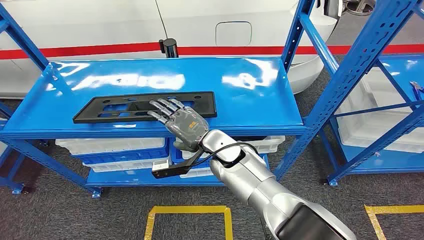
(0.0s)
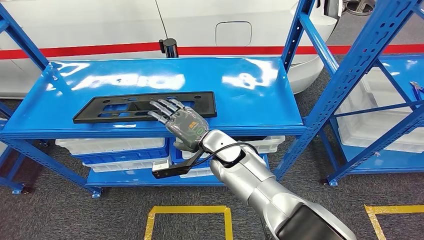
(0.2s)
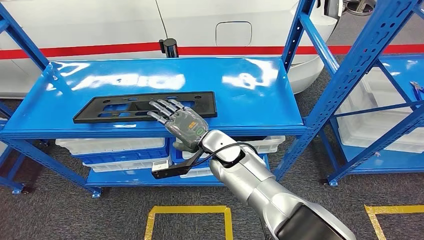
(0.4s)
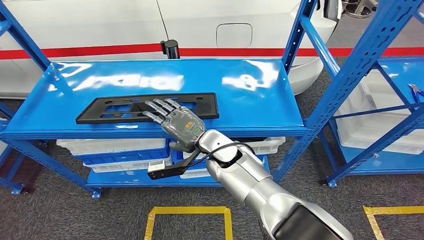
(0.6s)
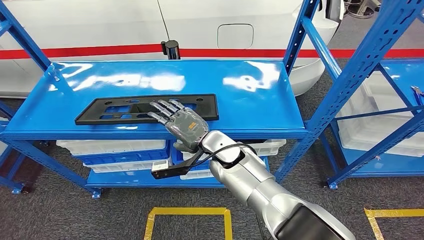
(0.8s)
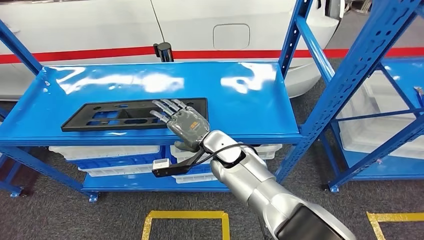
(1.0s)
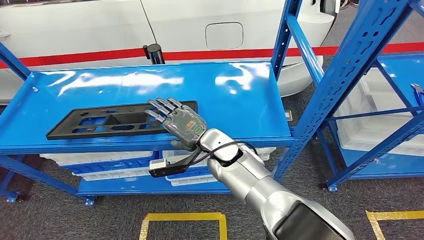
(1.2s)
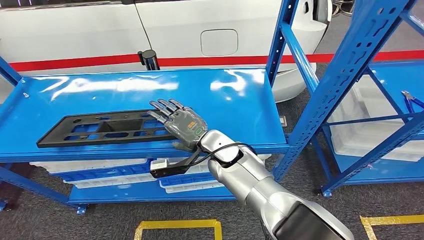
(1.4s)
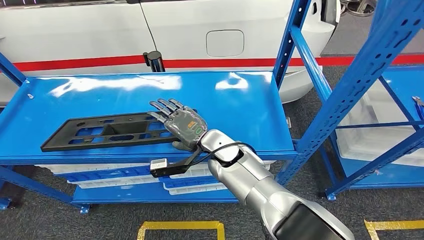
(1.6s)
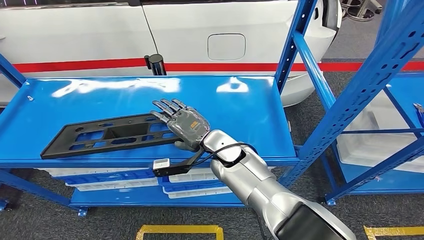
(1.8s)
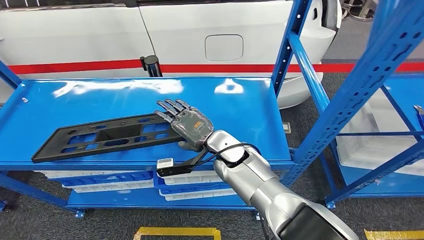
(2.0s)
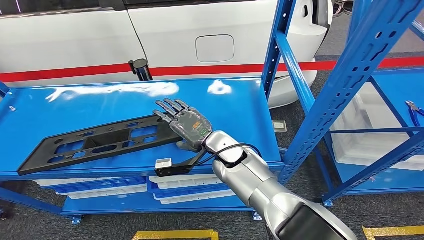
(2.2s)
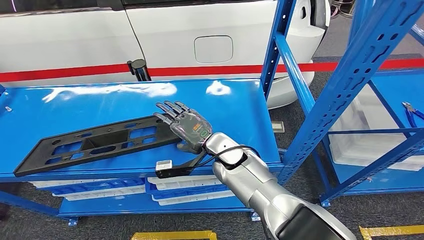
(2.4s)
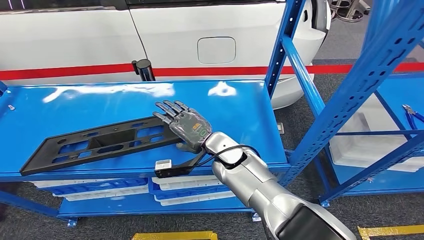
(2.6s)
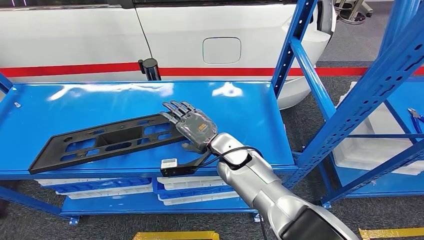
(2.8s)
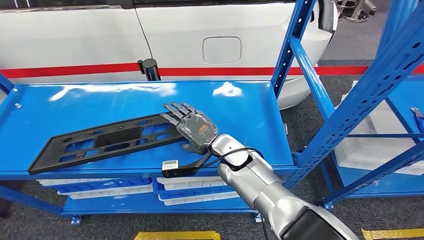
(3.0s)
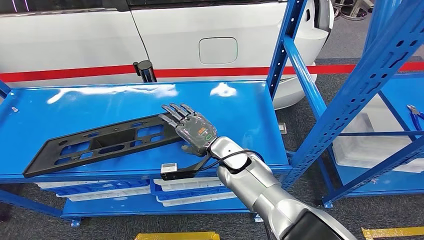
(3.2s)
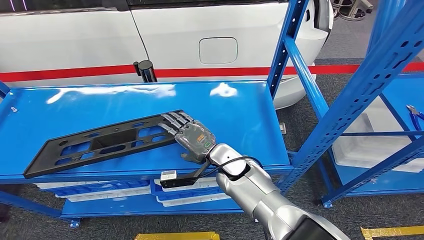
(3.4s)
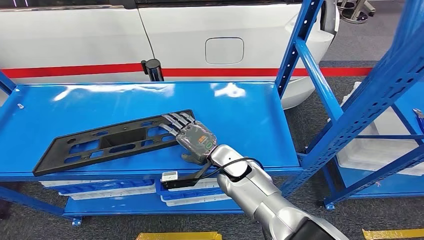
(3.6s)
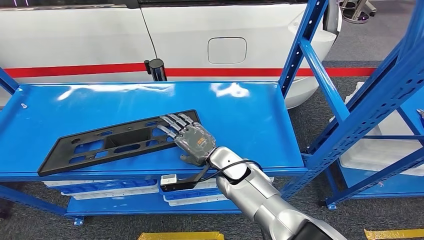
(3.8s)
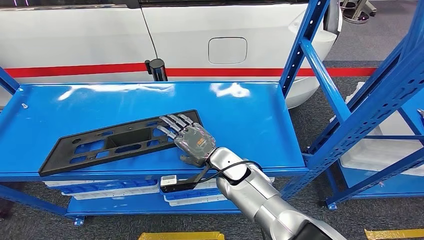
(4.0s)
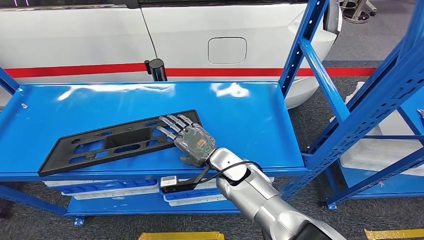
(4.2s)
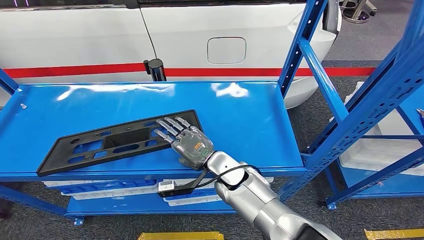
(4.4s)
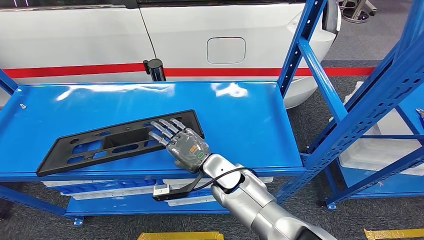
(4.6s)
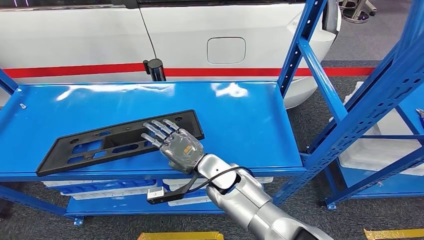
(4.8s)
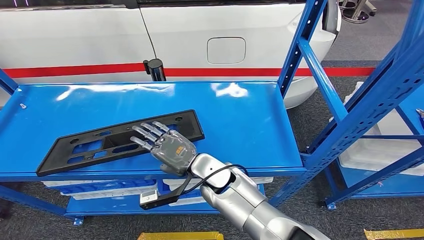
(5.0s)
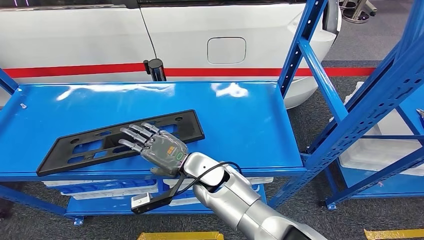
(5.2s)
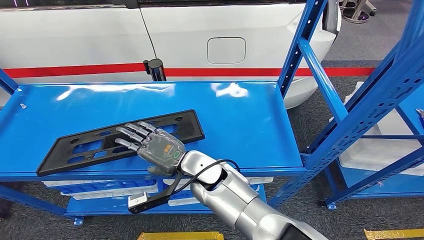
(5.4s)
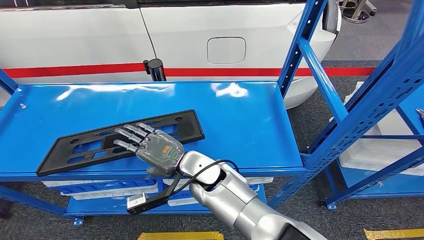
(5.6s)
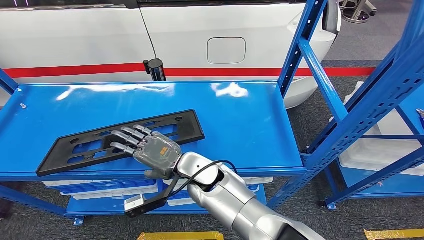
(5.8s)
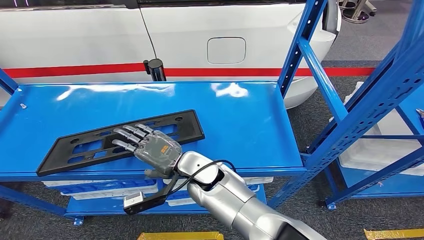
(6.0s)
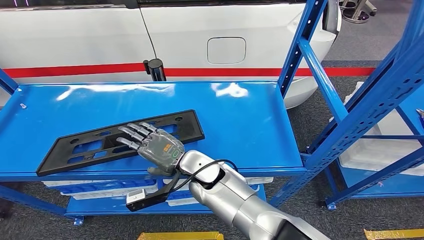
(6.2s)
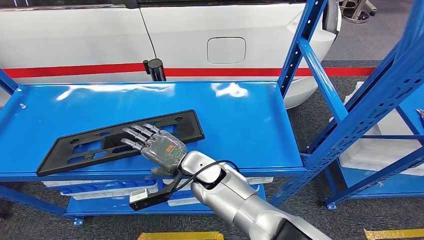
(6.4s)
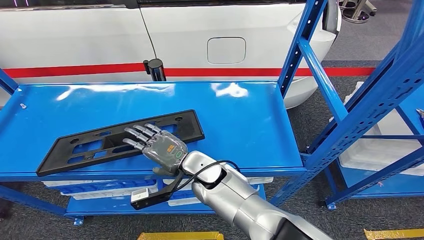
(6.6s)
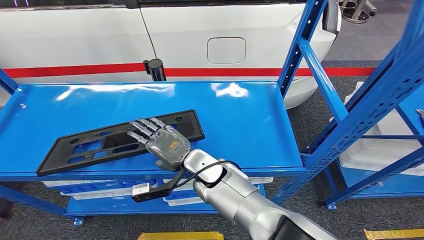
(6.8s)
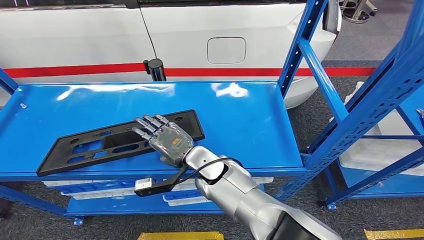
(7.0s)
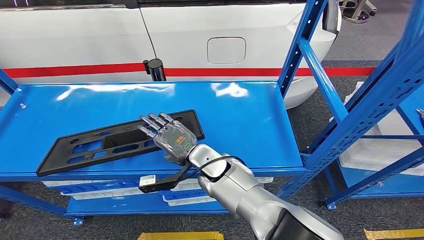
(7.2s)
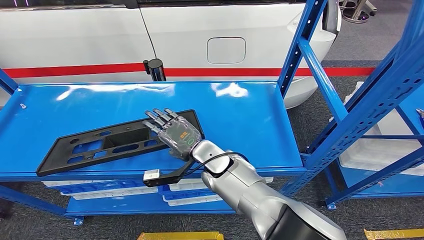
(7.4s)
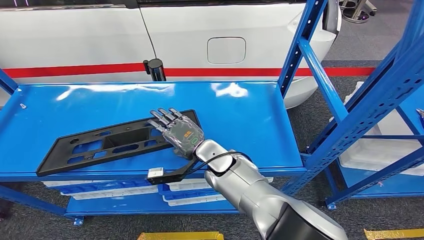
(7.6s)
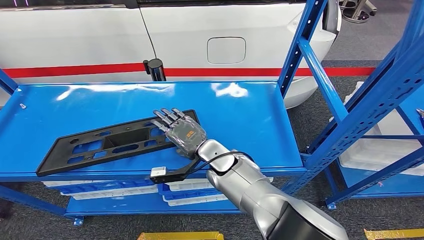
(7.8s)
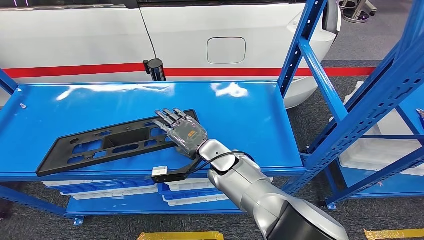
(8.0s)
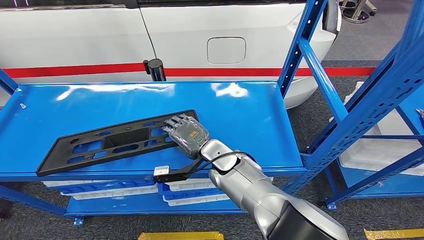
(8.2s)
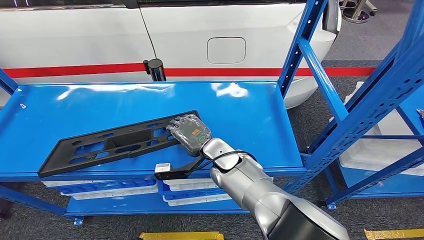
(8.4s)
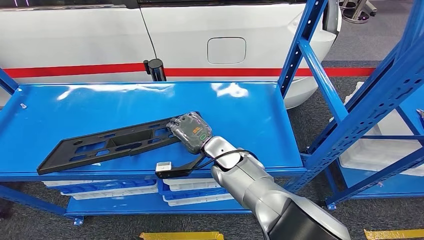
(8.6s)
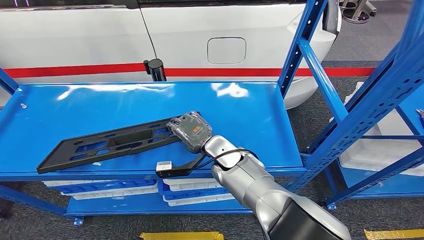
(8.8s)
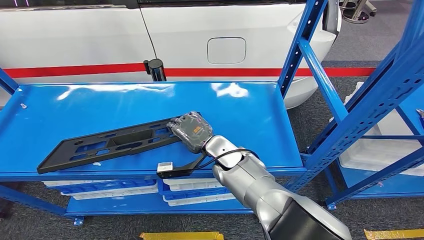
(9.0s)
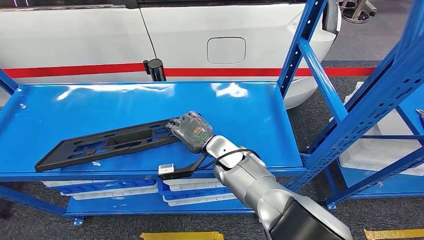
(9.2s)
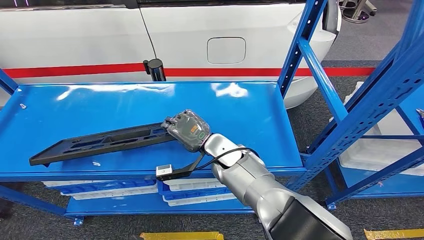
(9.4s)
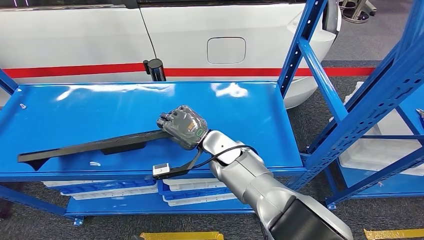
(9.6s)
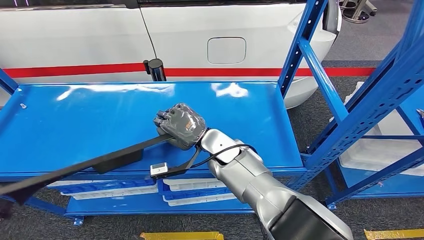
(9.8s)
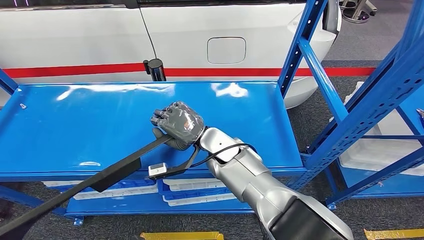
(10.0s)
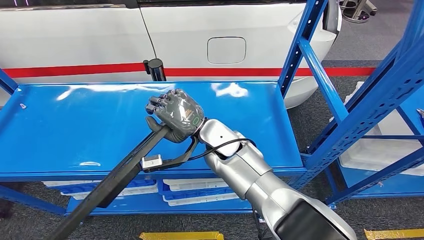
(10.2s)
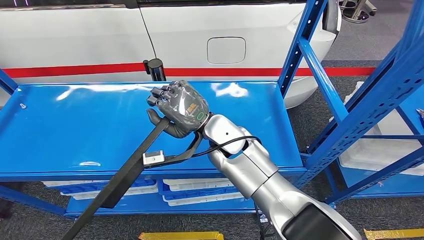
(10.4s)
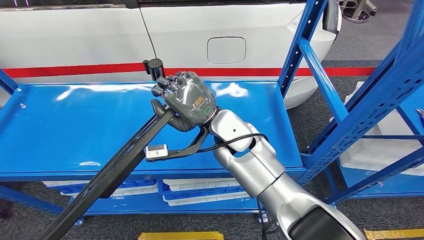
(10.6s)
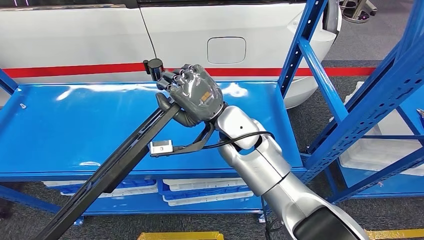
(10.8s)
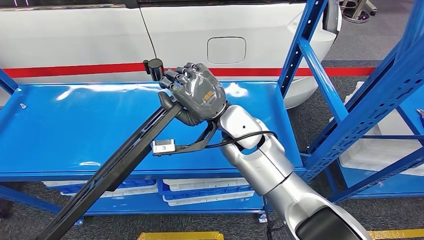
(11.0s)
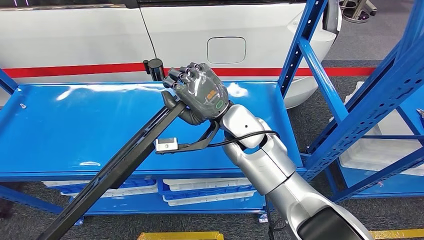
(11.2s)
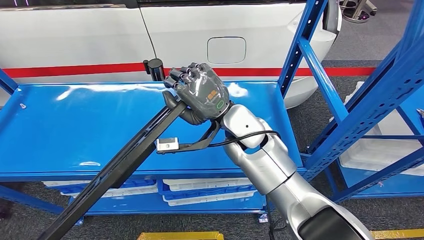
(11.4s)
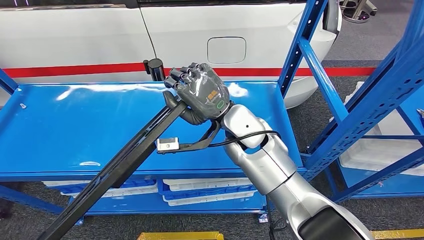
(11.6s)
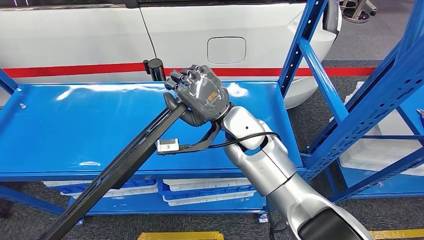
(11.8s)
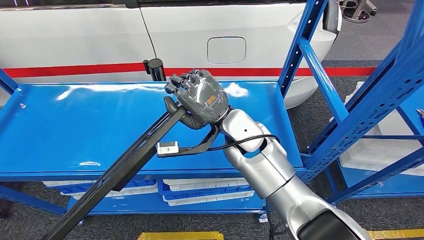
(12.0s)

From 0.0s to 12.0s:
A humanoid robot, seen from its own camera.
Step, from 0.0s to 10.4s: Pick up the large material from the shelf.
From 4.4s to 6.0s: The right hand is displaced to the left by about 5 cm.
From 6.0s to 7.6s: The right hand changes place by some 5 cm.
From 7.6s to 9.0s: The hands stay close to where they were, moving slightly.
From 9.0s to 10.4s: The right hand is displaced upward by about 10 cm.
From 10.4s to 12.0s: The hands move only a little.

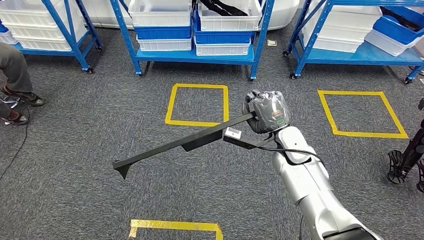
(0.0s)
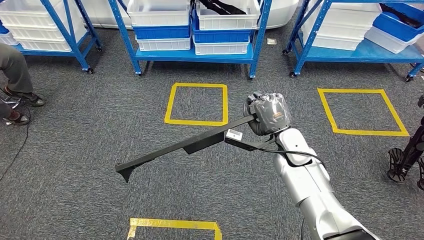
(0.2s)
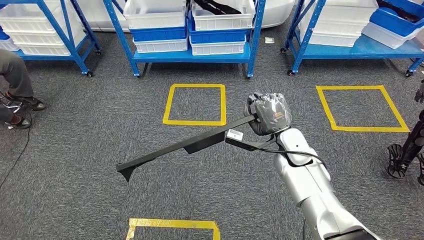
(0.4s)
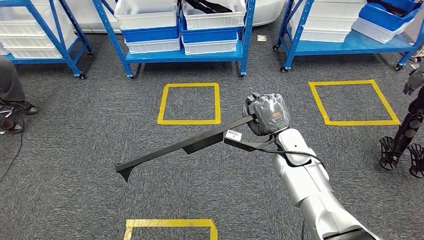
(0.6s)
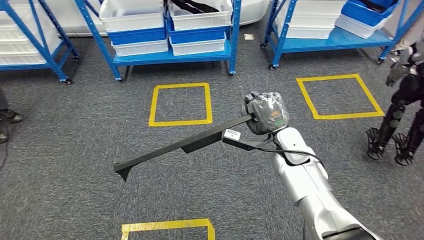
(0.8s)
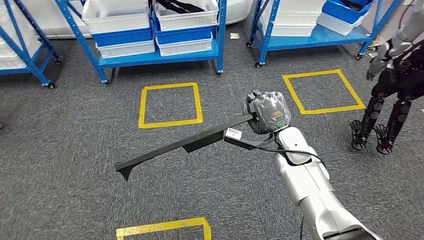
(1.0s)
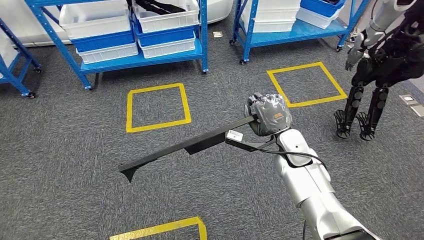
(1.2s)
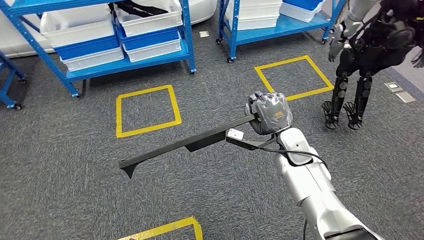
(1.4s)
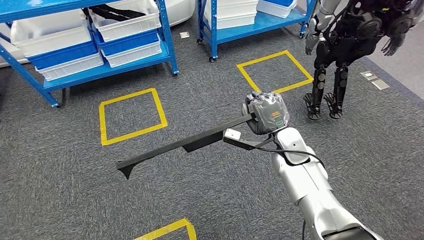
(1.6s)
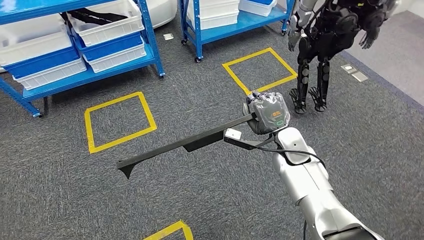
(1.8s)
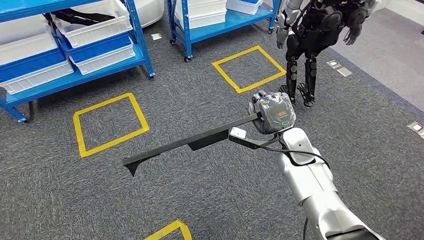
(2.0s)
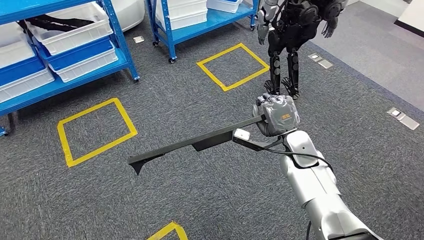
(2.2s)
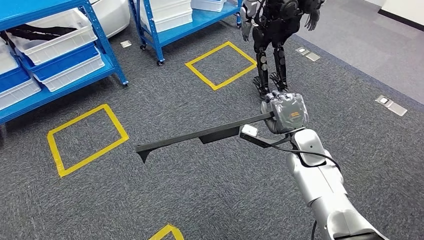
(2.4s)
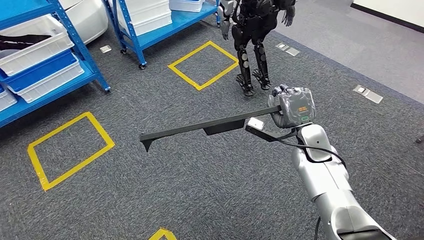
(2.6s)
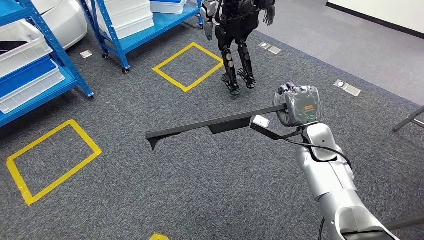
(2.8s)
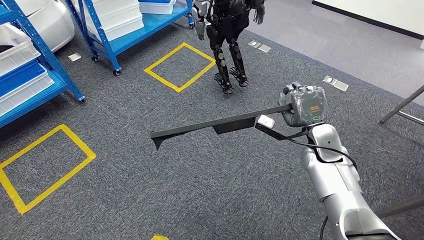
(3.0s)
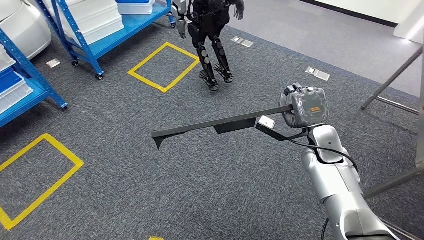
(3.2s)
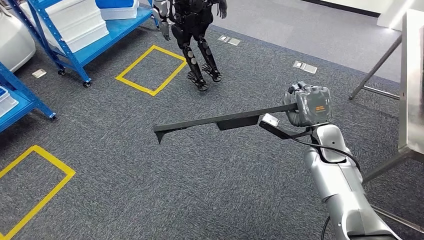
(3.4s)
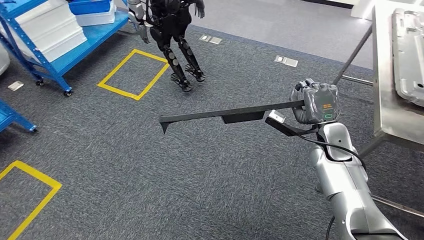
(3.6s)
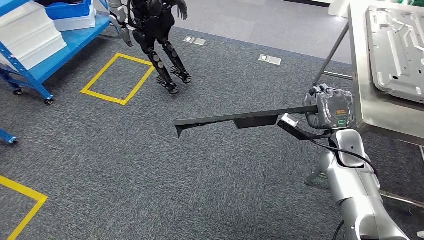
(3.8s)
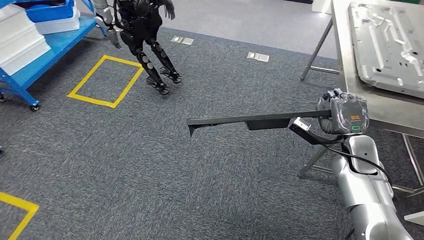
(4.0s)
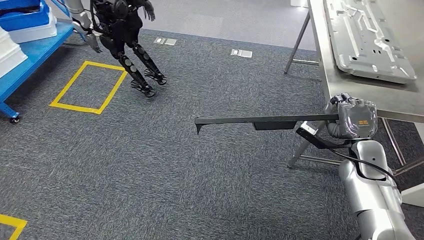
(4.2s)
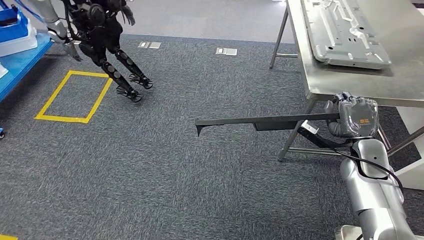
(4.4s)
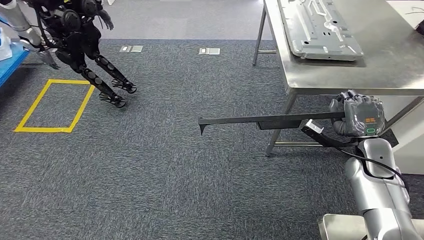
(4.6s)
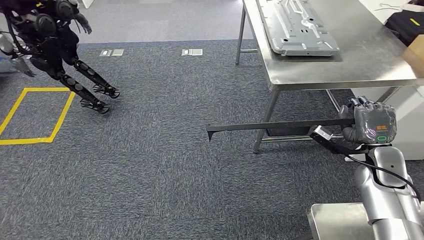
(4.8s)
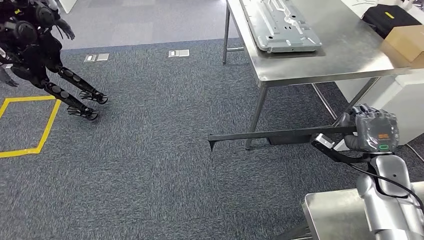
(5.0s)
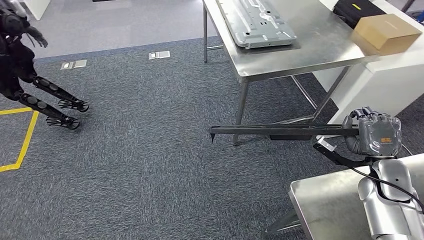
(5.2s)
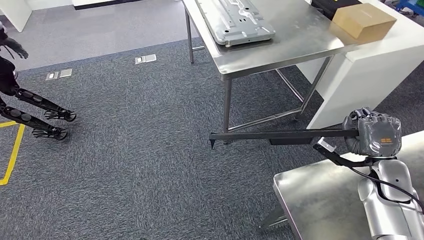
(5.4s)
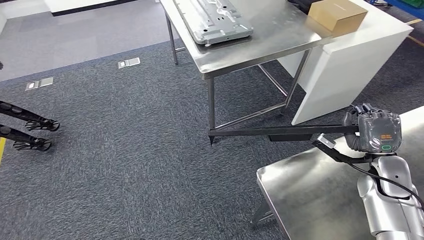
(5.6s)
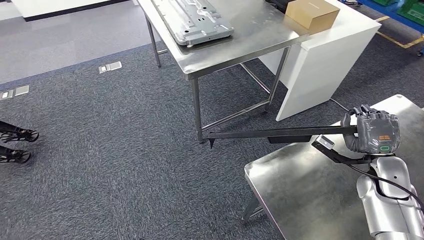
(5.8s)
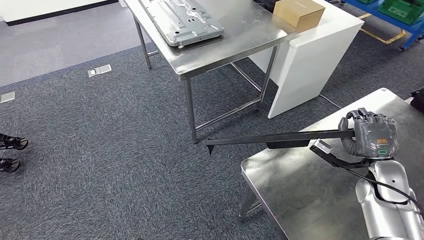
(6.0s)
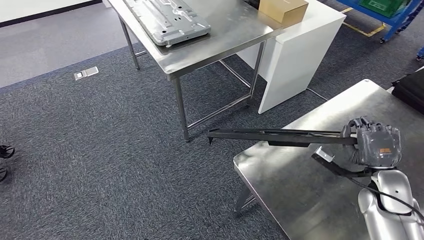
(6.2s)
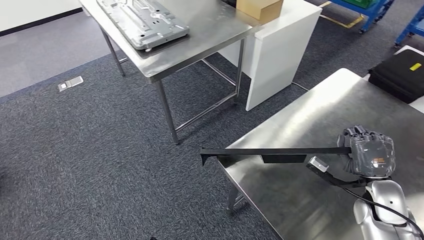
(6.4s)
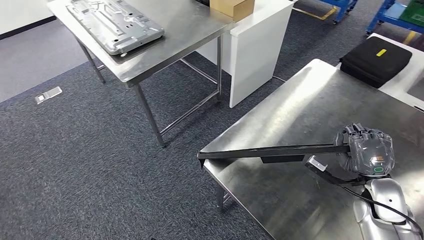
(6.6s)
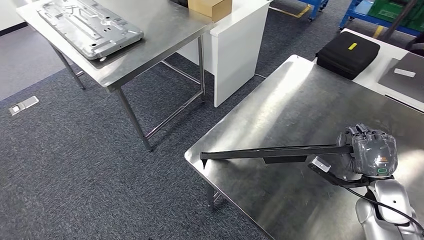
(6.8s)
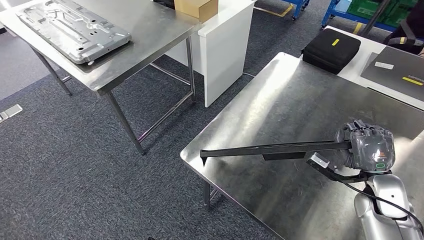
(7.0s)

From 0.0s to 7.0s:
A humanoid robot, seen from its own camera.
Step, from 0.0s to 5.4s: Move the large material to the workbench.
